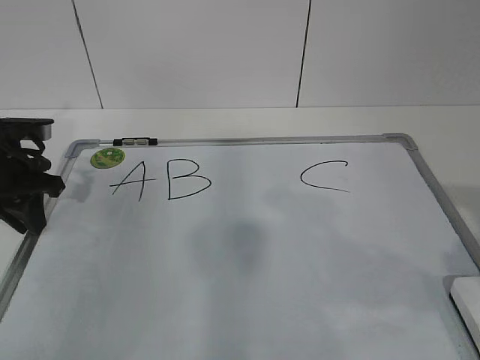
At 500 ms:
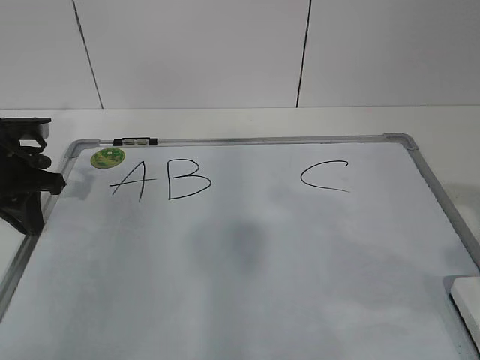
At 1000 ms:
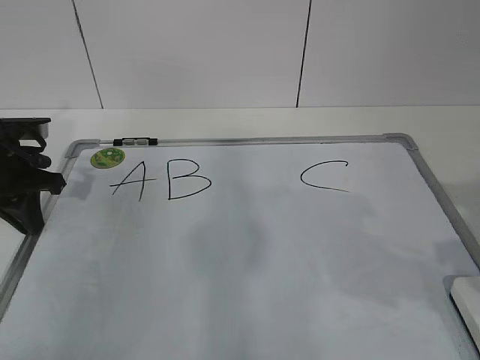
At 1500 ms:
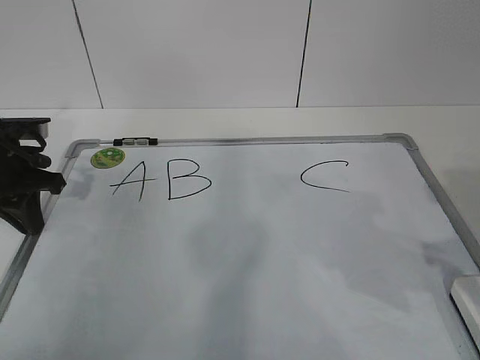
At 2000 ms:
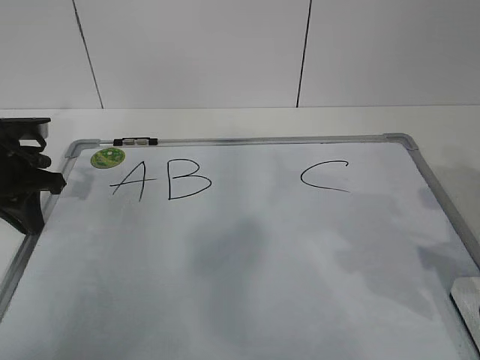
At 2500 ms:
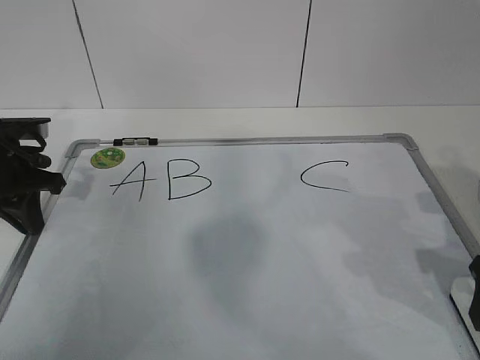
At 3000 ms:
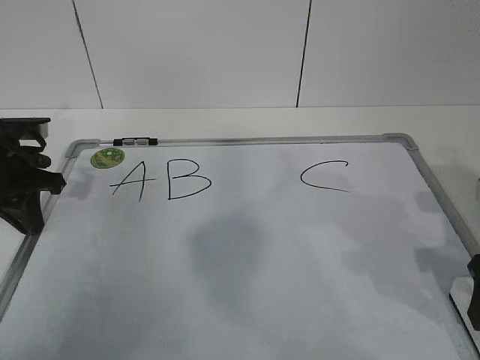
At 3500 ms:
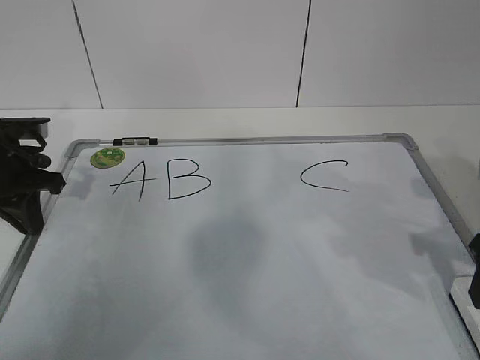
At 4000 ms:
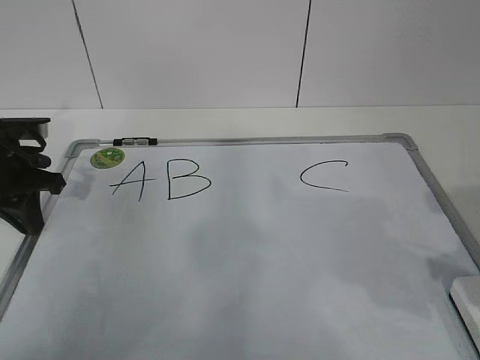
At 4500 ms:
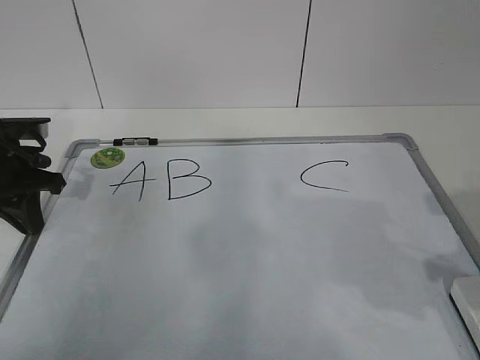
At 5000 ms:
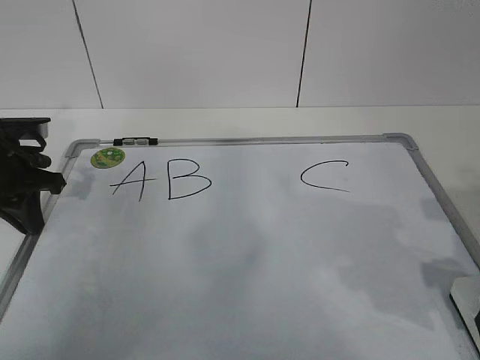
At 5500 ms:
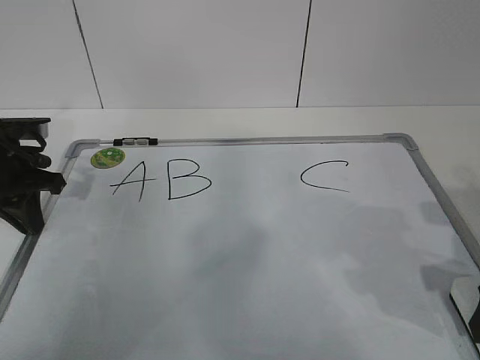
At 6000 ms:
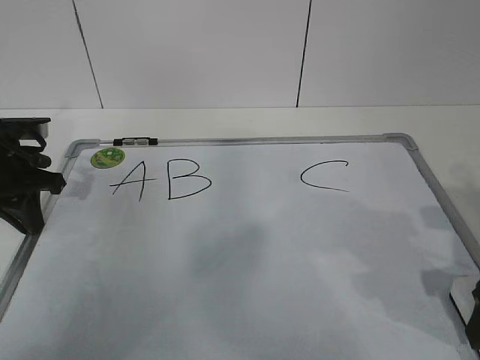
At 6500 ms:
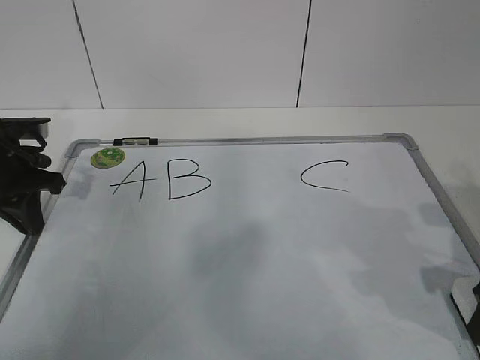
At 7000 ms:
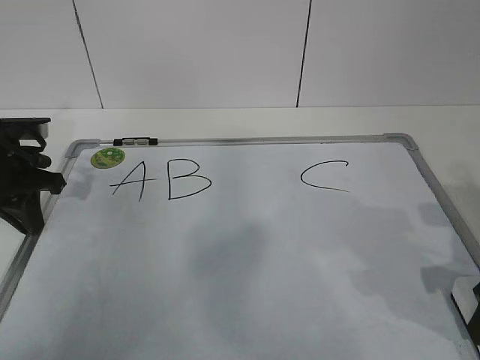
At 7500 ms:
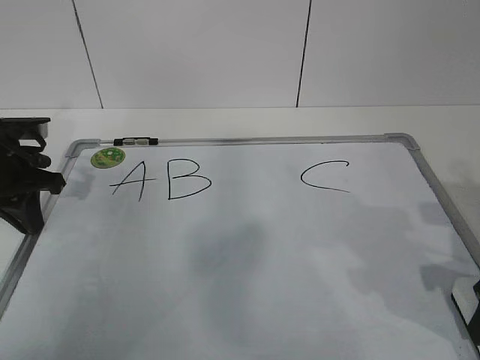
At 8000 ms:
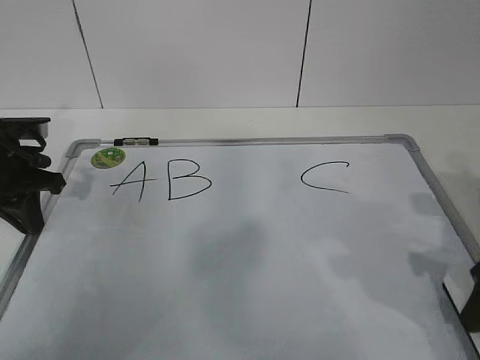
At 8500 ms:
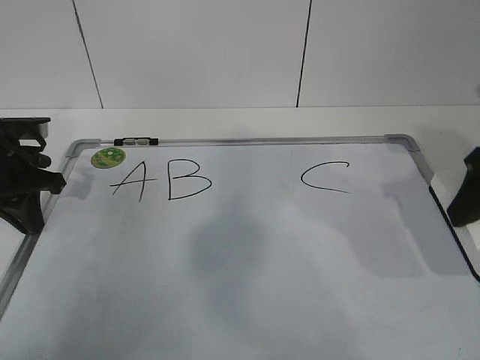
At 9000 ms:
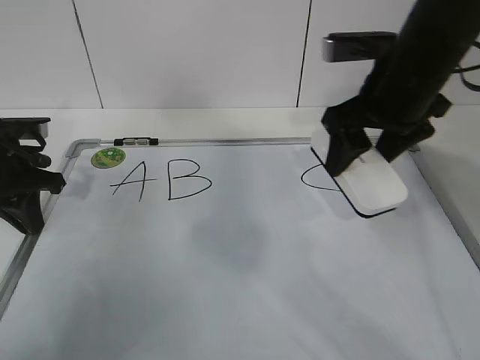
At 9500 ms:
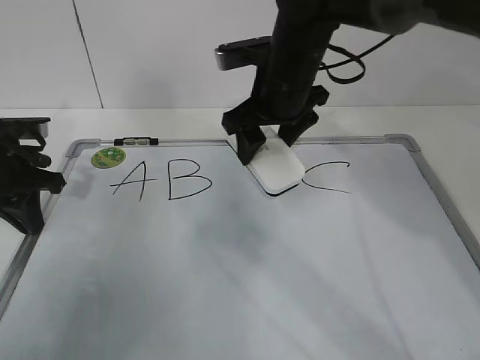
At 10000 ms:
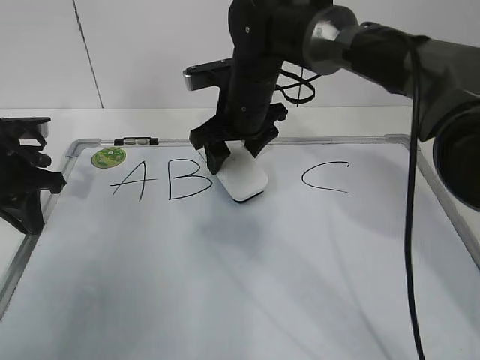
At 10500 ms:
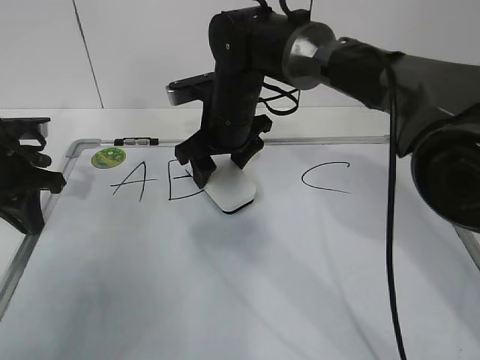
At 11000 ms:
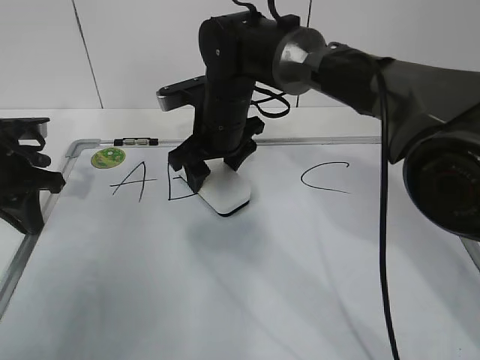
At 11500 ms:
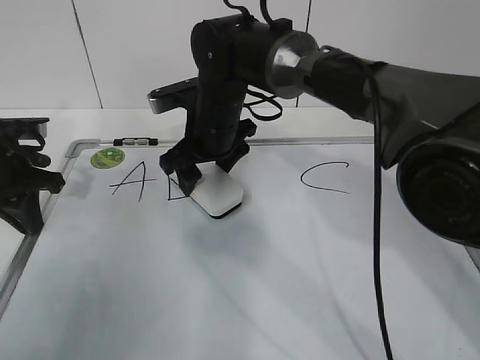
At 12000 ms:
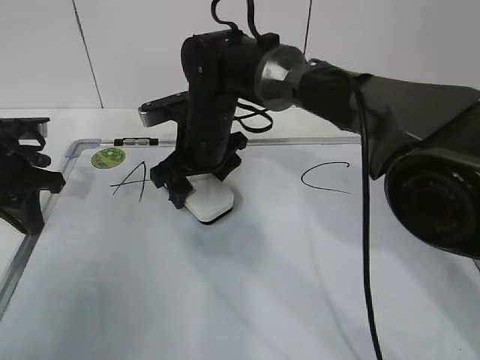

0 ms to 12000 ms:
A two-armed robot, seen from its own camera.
Task of the whole recording: pick up the eraser on the blackboard and erase the letter "B".
Step, 0 ms to 4000 ms: Grab the eraser with your right hand.
4000 ms to 6000 ms: The right gripper opens.
6000 ms to 8000 ms: The right gripper closes up.
8000 ms to 10000 ms: The right gripper moves to the left and forward, about 35 cm.
10000 ms to 12000 ms: The right gripper shifts about 5 cm to the left, and opens its fingers.

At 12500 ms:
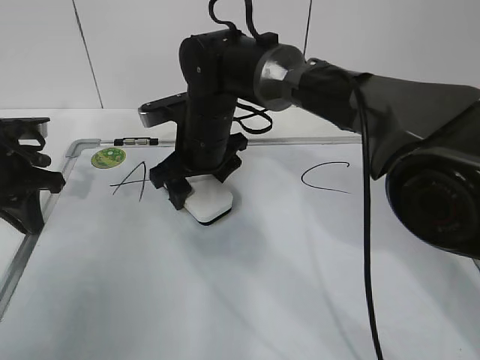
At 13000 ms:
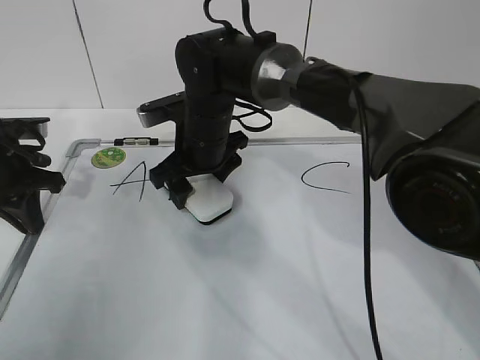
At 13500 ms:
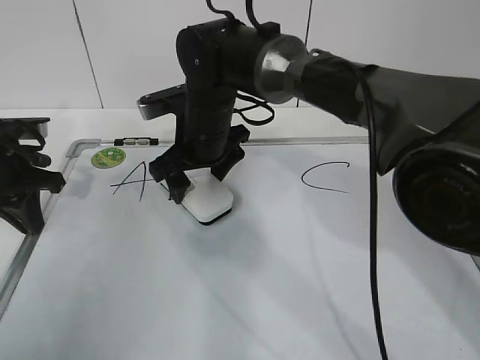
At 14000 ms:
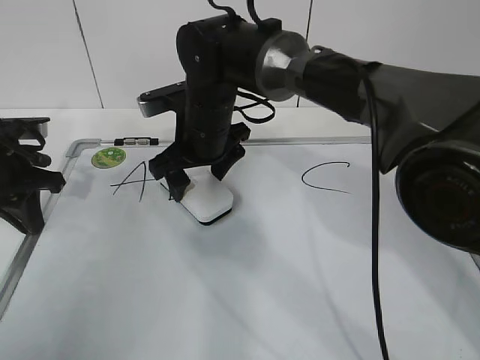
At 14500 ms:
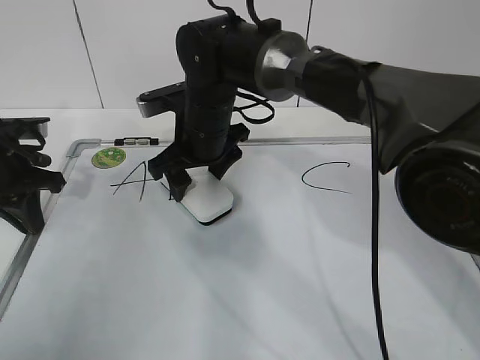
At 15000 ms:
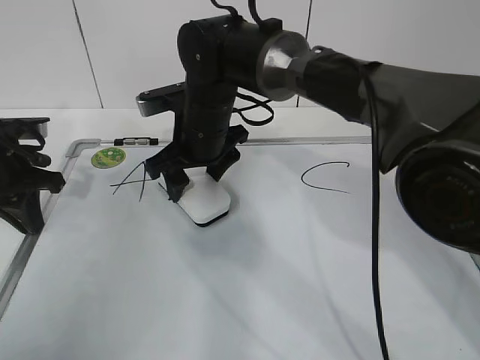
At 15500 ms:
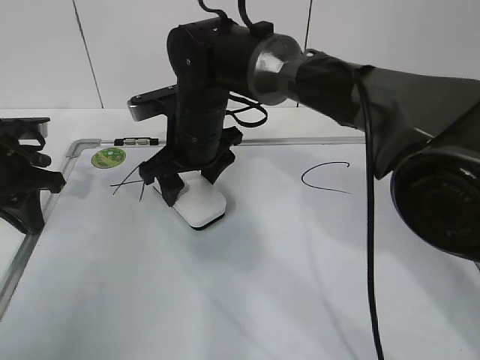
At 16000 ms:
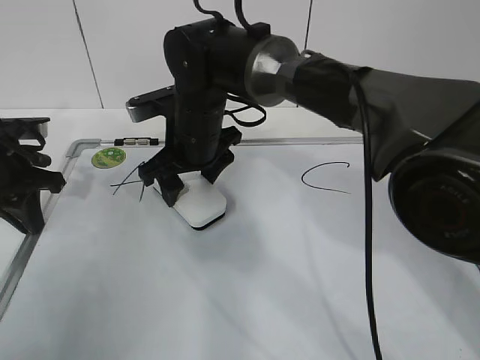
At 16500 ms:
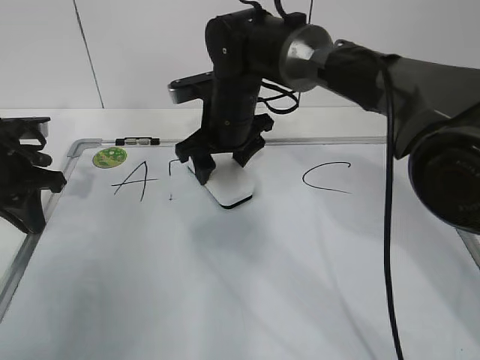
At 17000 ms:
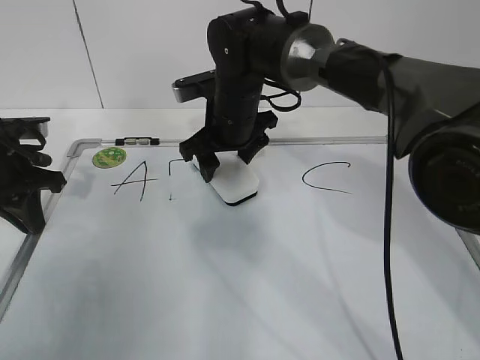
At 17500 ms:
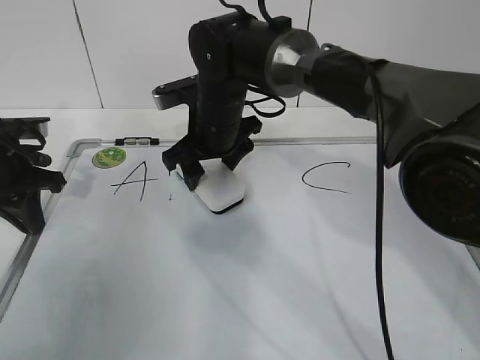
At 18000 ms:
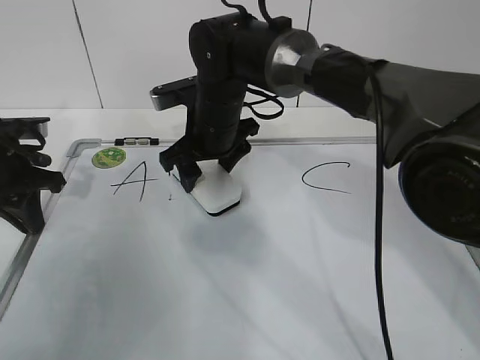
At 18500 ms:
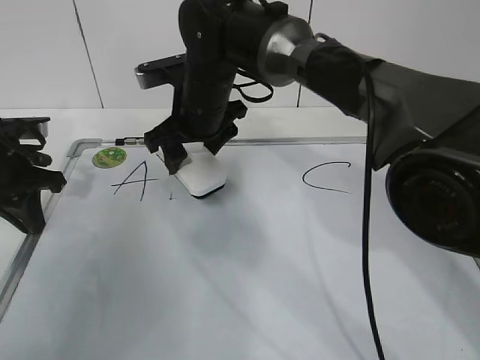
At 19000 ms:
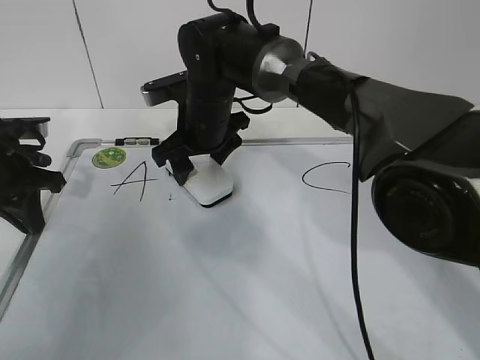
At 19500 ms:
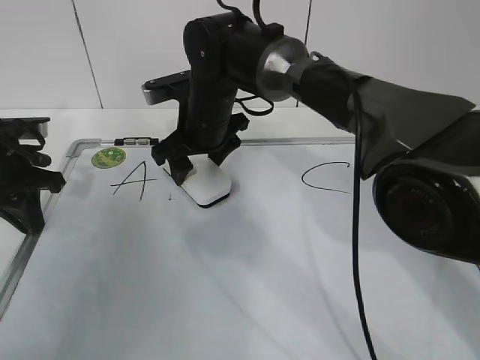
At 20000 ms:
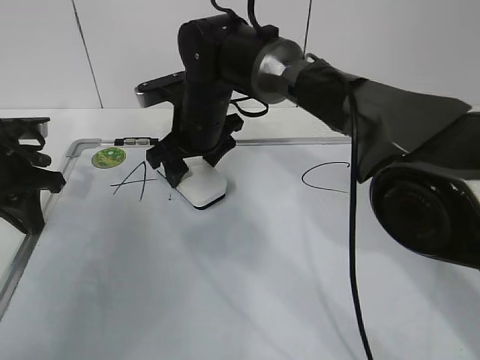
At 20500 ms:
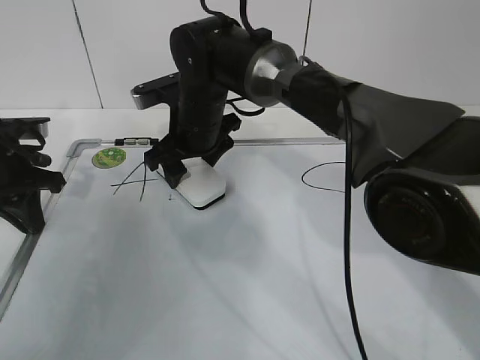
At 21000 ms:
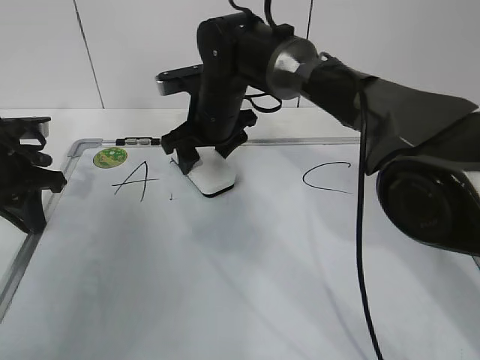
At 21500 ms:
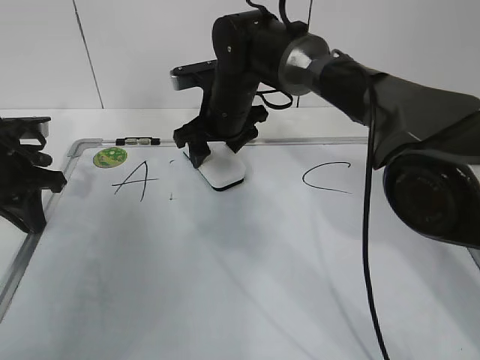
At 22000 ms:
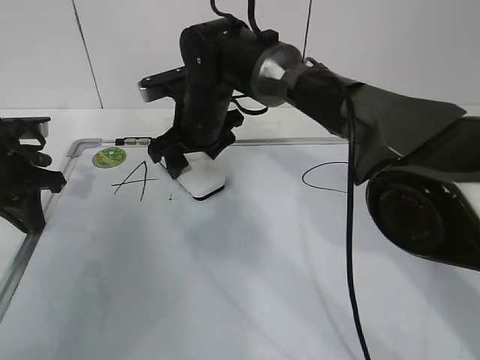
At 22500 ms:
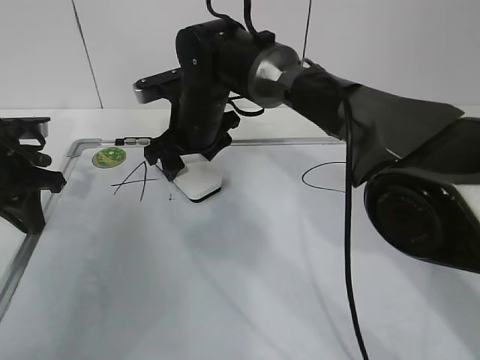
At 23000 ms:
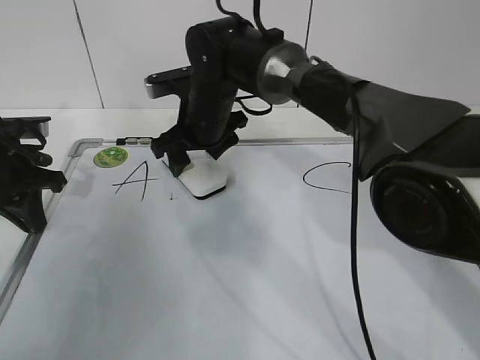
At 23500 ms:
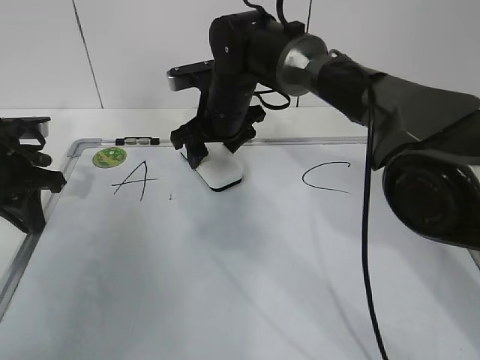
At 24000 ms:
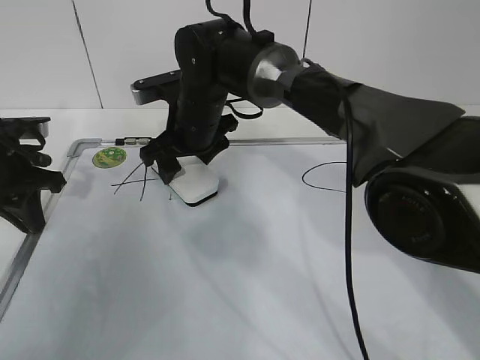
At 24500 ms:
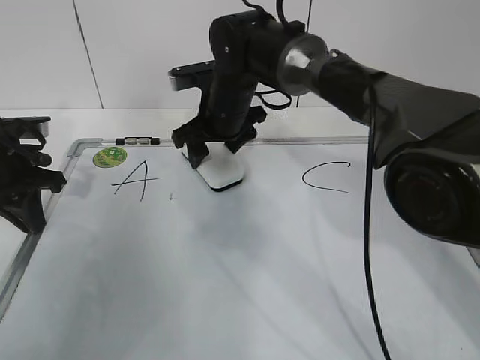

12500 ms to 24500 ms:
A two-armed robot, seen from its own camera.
Task of the whole recording: pick up the eraser on the blackboard and erase the letter "B".
Step, 12500 ms to 23000 ms: Erase the letter B with your right hand.
12500 ms to 14500 ms: The right gripper opens, then closes again.
14500 ms to 20500 ms: There are only small adjustments of the grippers.
20500 ms to 22500 ms: The grippers make only small movements.
22500 ms to 24500 ms: The right gripper swings left and right, about 5 cm each way, with 2 reversals.

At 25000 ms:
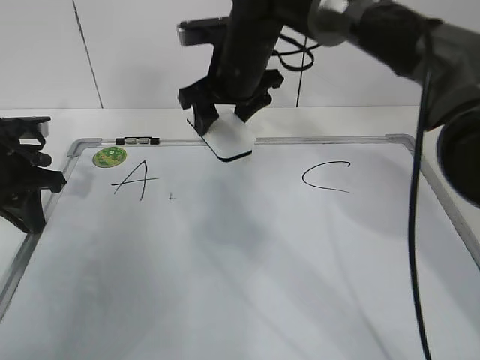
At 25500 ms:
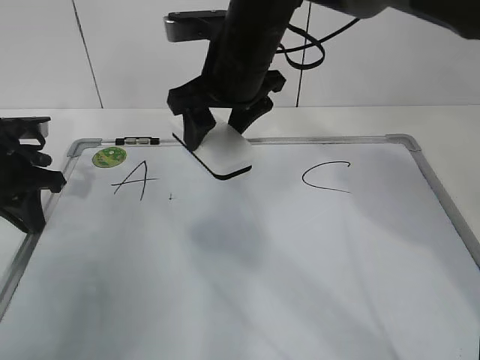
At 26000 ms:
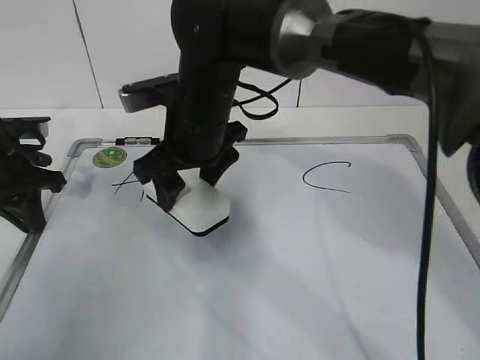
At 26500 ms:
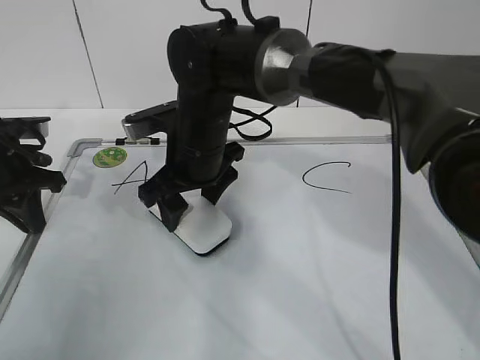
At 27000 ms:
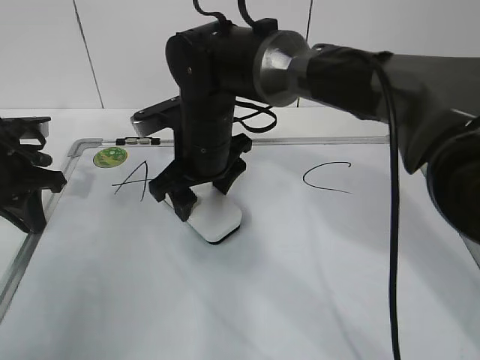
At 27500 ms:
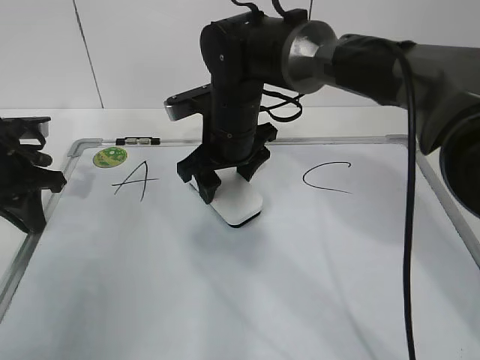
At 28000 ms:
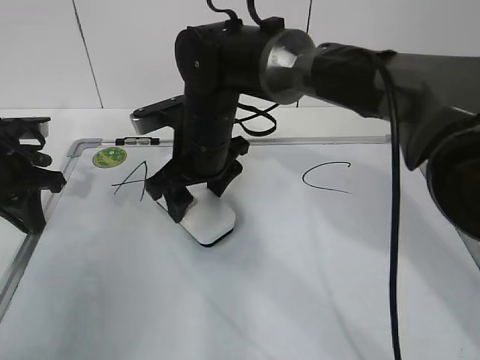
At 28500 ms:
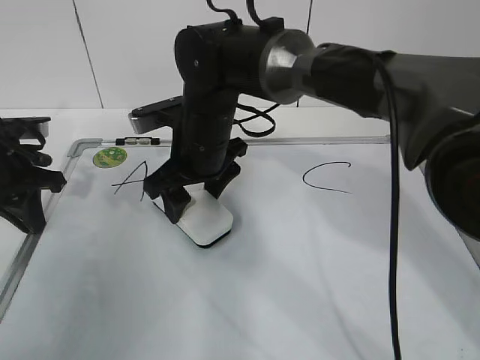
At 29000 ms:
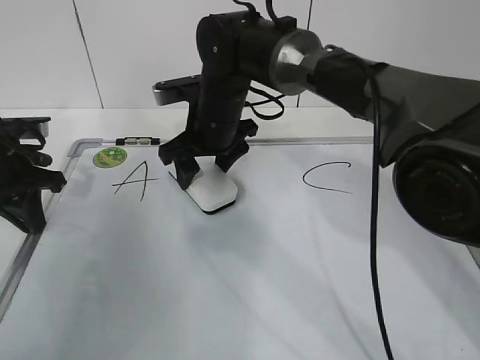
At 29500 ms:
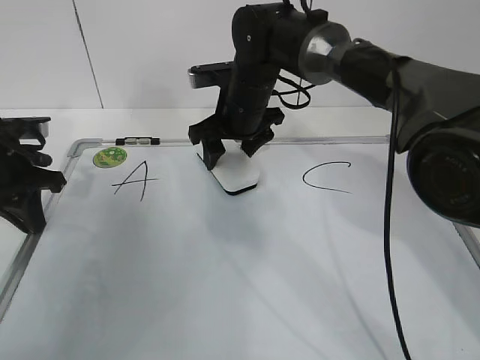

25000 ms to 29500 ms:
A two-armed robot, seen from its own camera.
Task of the whole recording: pick up the eraser on the blackboard and erase the letter "B".
Step, 25000 ms to 28000 ms: Put down the eraser with your right hand.
25000 ms to 27000 ms: The right gripper is displaced backward and downward by approximately 10 cm.
27000 ms to 29500 ms: The right gripper heads forward and to the right, covering approximately 10 cm.
